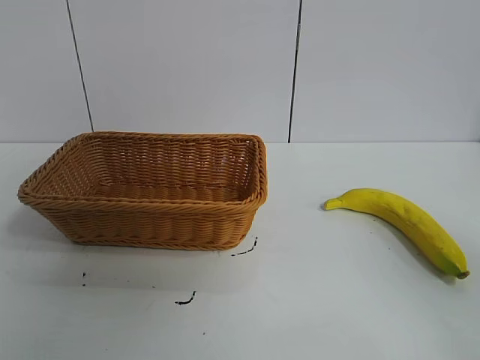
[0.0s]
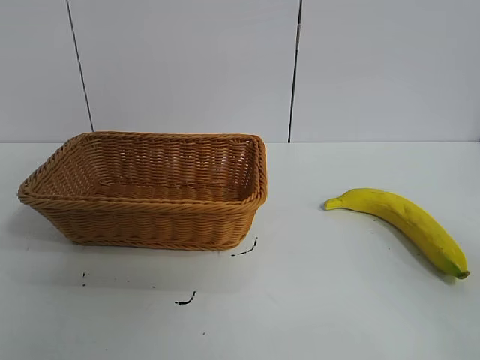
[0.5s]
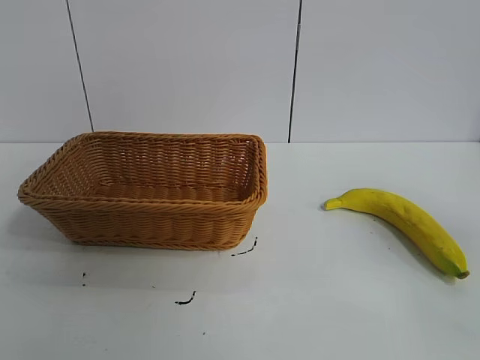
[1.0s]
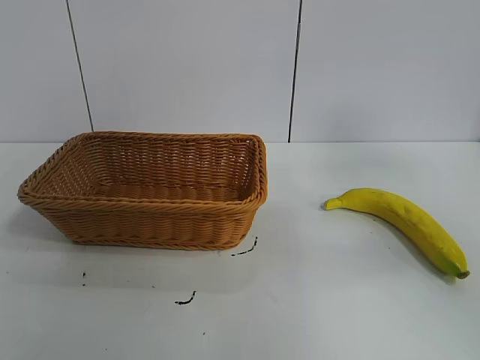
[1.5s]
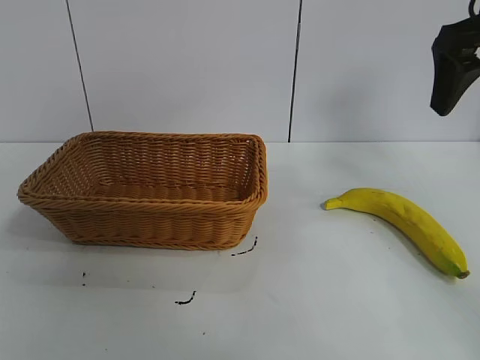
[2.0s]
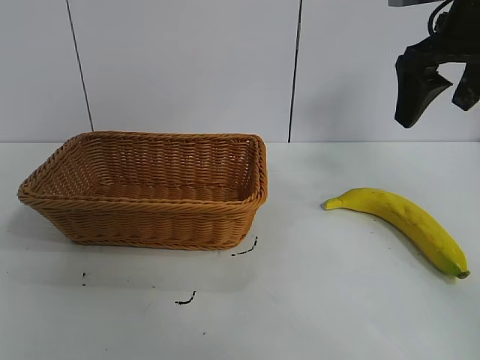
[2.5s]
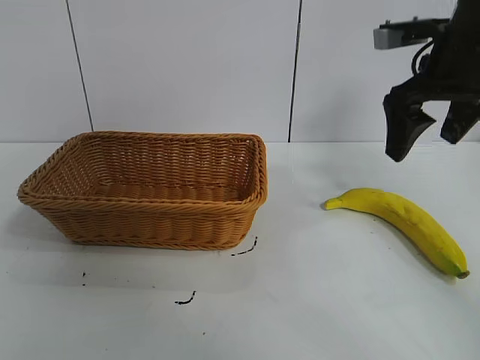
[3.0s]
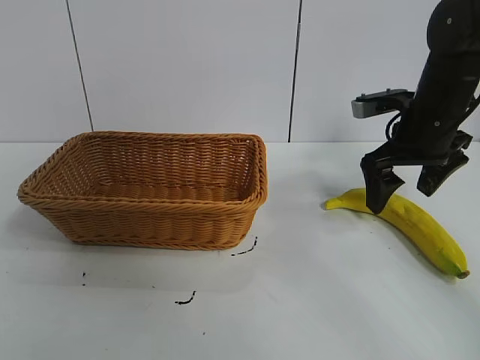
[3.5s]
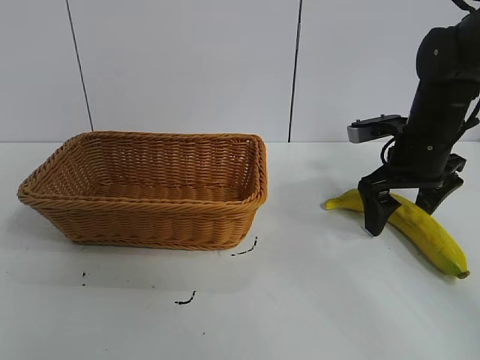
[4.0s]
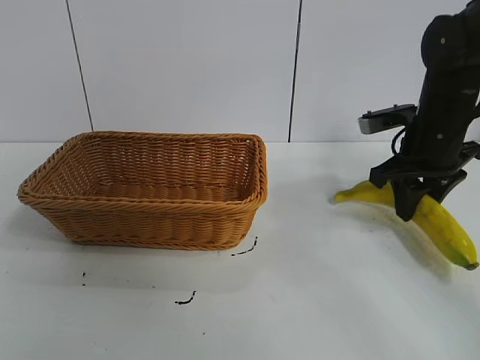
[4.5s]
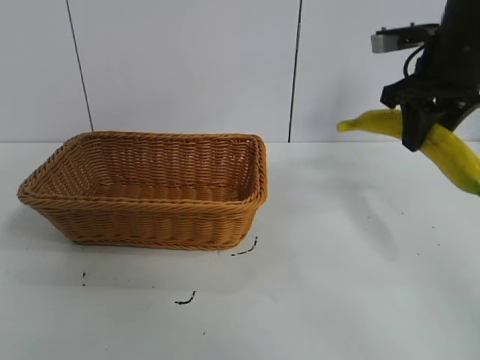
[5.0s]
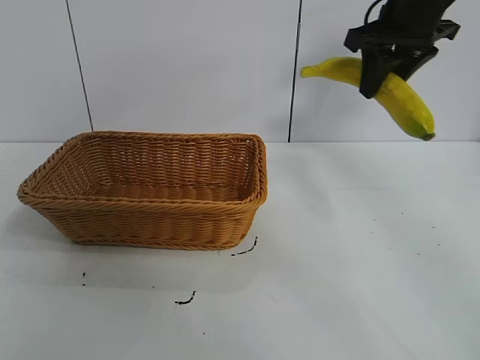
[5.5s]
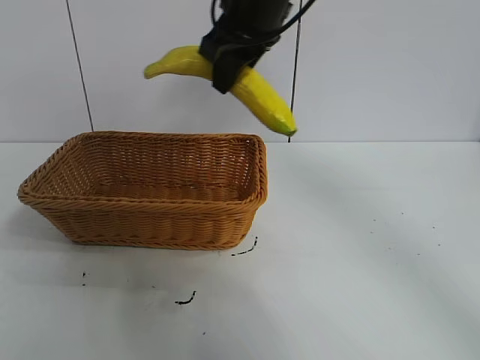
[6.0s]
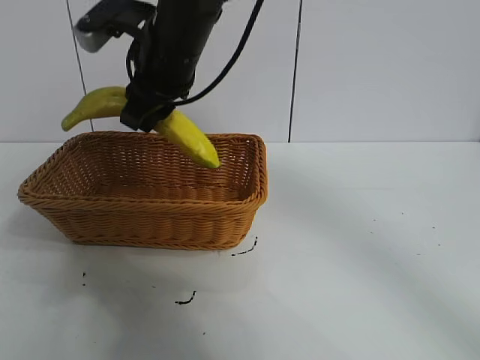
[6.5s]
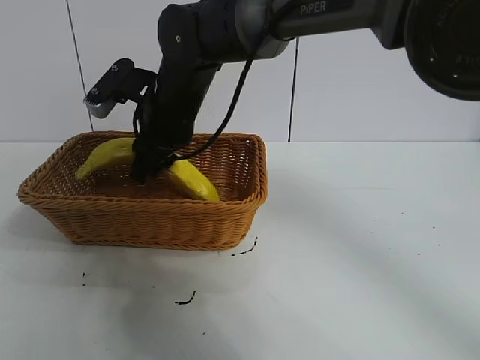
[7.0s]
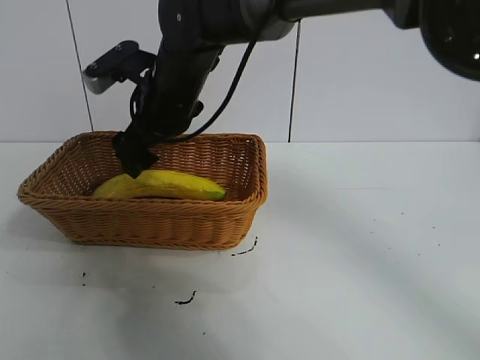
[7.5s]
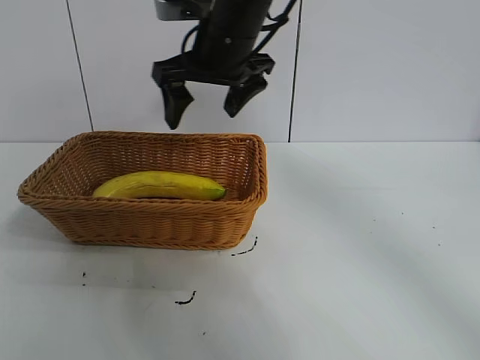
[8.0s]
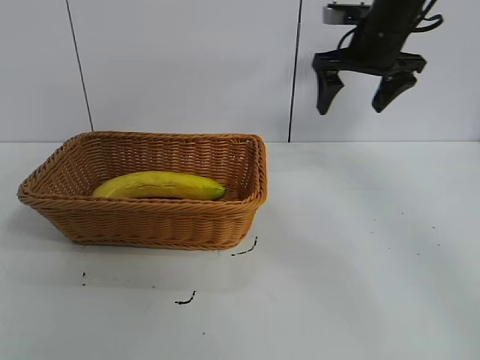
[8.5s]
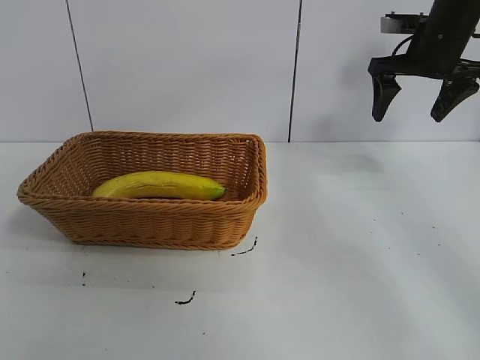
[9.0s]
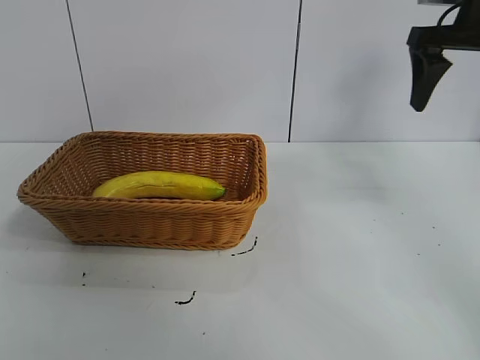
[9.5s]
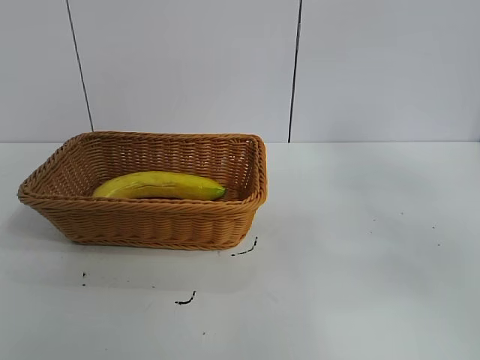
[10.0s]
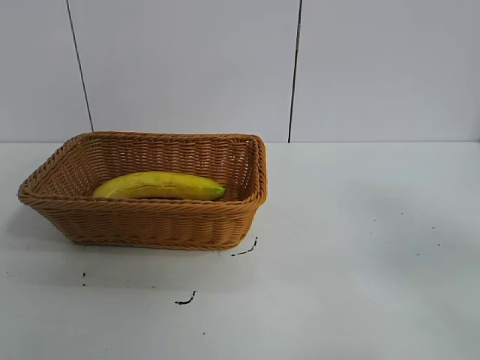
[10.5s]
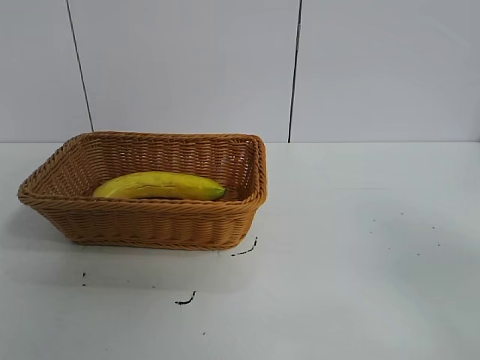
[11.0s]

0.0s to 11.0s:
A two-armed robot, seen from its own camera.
Task of the whole recording: pick up the banana and put it into the basket.
Step, 1.0s to 4.0s: Grasp the banana with right gripper.
Step, 4.5s to 7.5s: Place the banana in the basket with right gripper.
